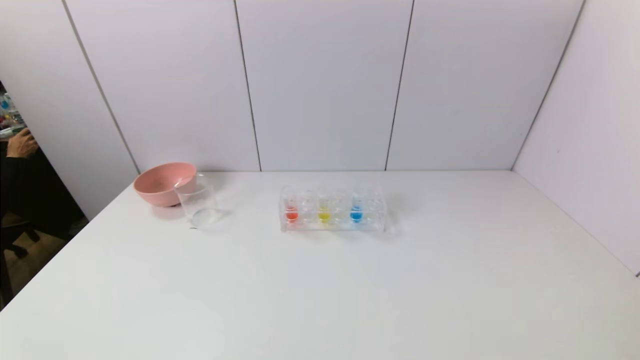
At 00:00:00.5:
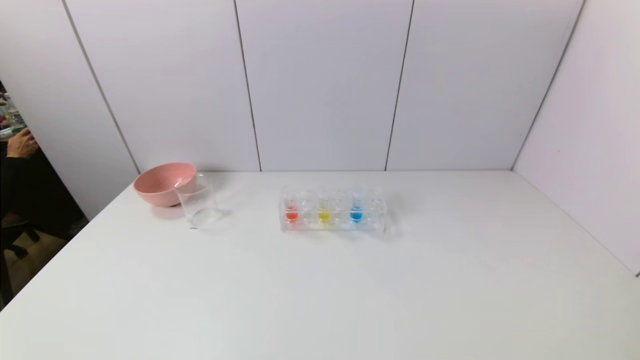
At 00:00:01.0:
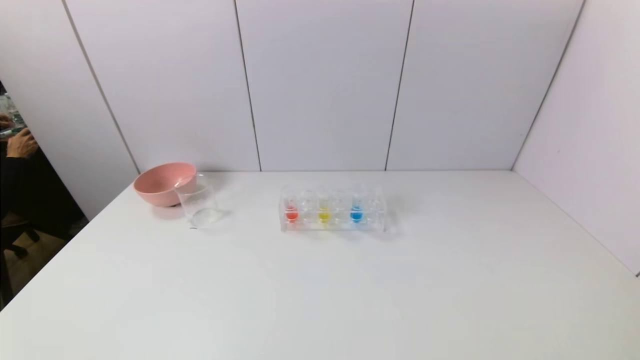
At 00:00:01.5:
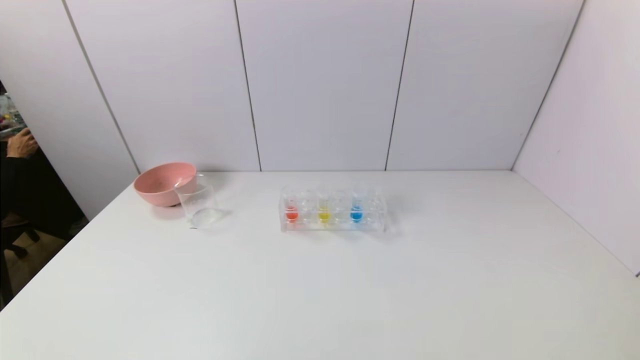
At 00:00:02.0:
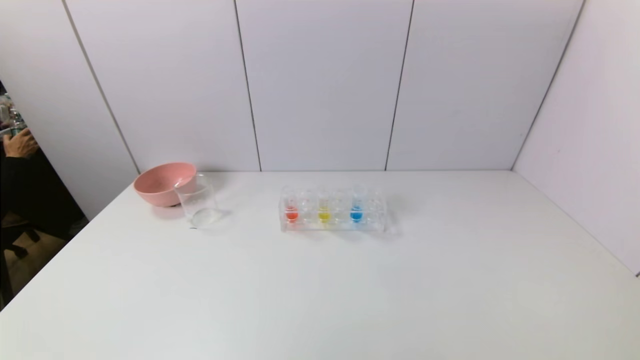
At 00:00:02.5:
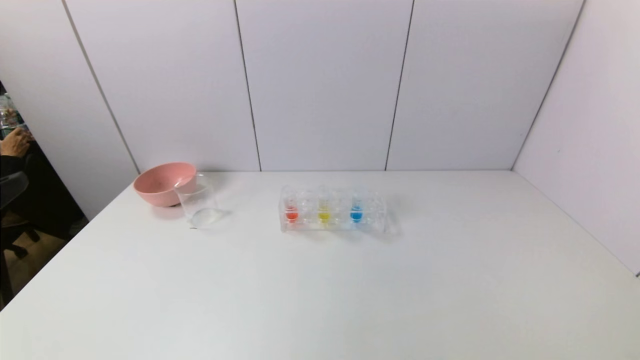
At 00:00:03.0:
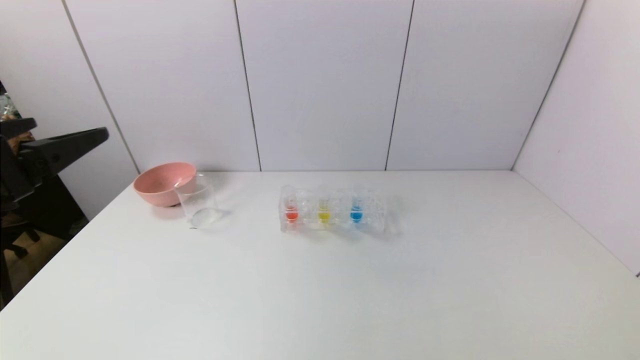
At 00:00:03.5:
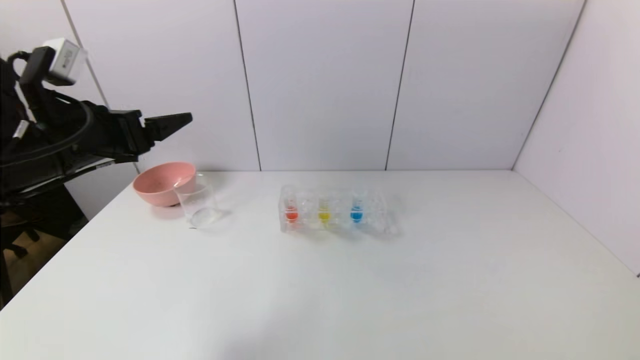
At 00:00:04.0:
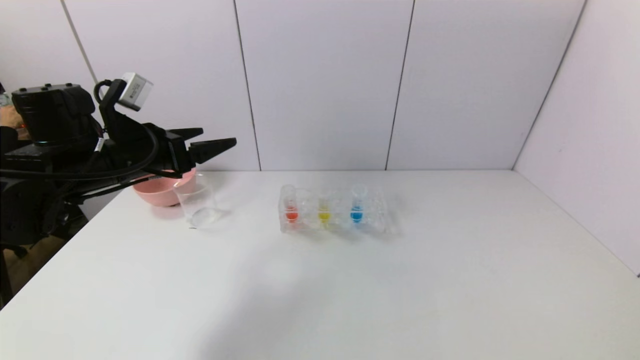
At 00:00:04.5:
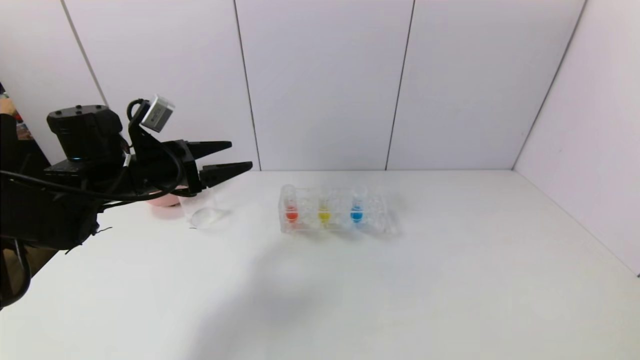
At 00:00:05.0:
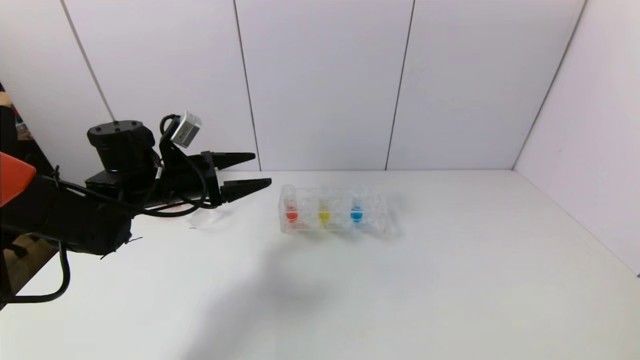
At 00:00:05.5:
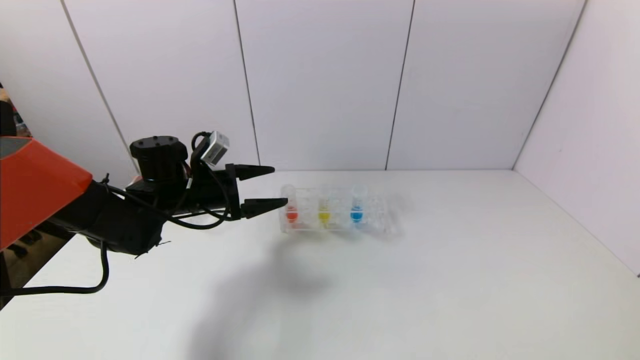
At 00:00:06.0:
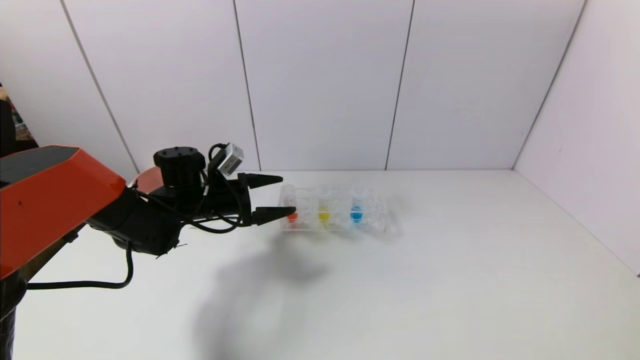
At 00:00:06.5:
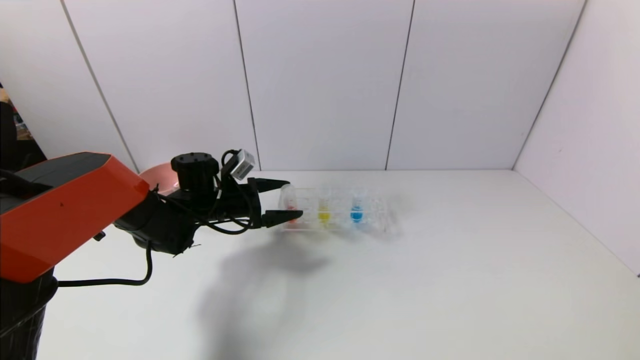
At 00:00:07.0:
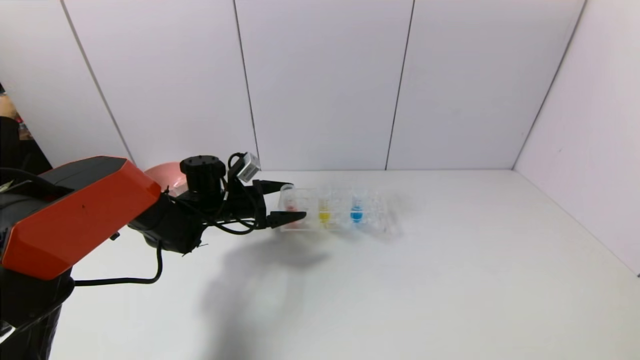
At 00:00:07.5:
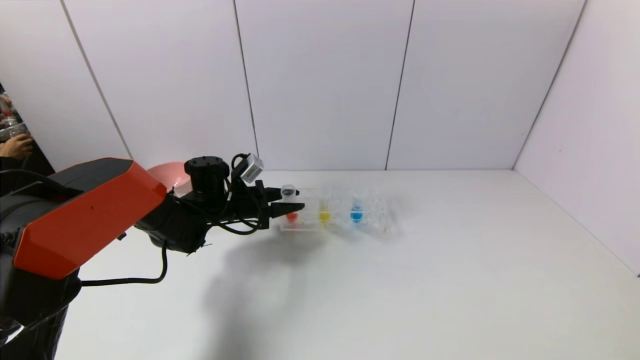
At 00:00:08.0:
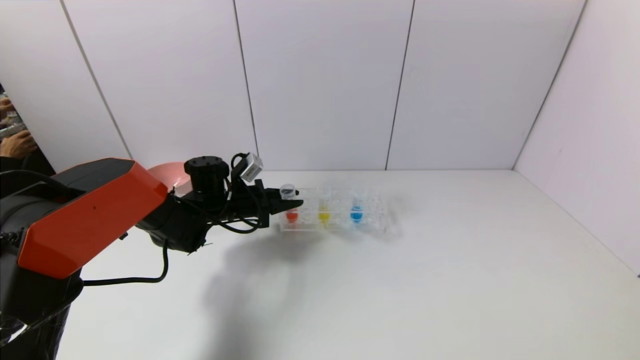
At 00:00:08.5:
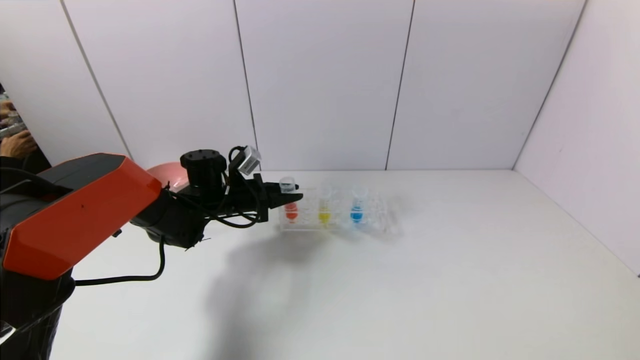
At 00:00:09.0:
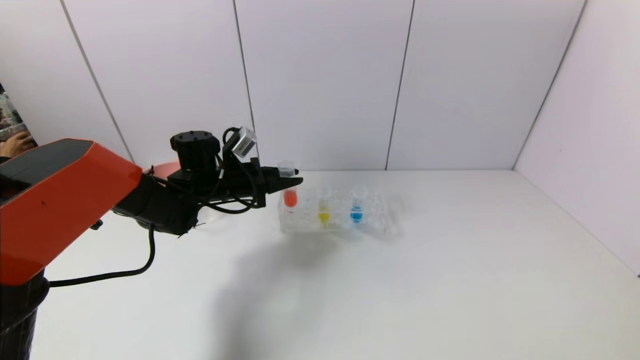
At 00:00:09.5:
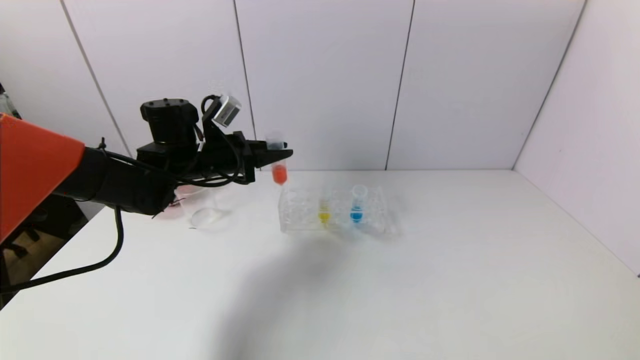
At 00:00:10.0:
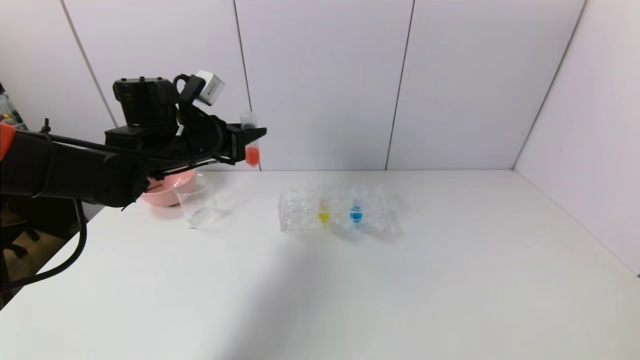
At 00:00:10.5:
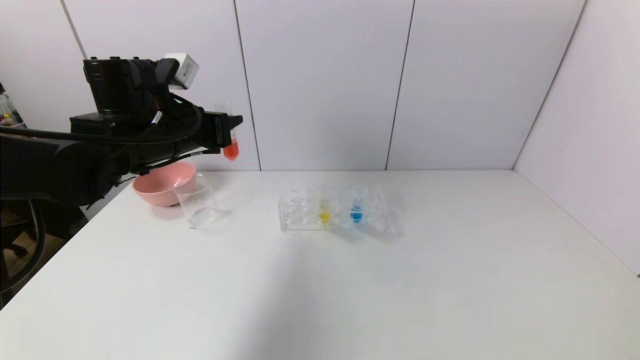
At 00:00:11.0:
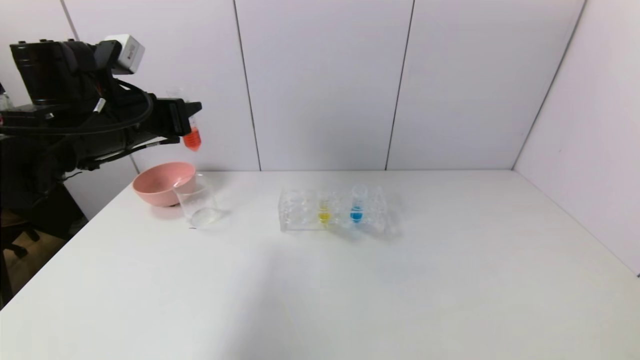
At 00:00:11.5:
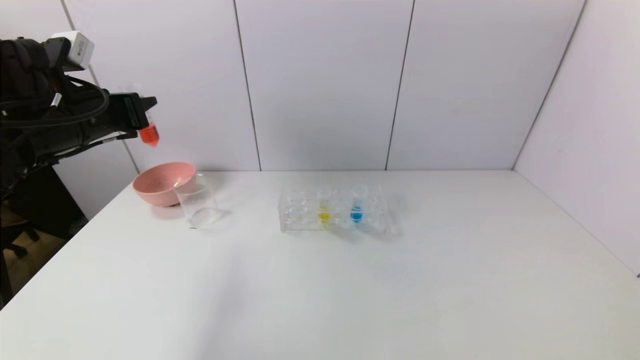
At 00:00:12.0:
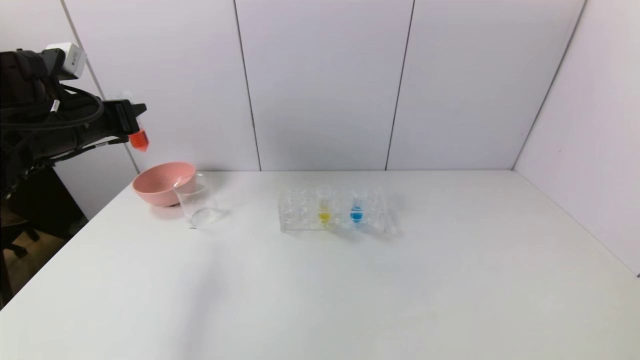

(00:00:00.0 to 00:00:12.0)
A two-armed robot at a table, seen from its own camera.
Task of the whole recording: pick up the test tube with red pigment and the test tube with blue pigment by grippers and pour them into the container.
Step, 00:00:00.0 - 00:00:08.0: Grasp the red reagent with the left gripper.
00:00:02.0 - 00:00:04.0: The left gripper goes approximately 35 cm forward.
00:00:04.0 - 00:00:06.0: The left gripper shifts approximately 15 cm downward, forward and to the right.
00:00:06.0 - 00:00:08.0: The left gripper shifts by some 5 cm, and closes.
00:00:08.0 - 00:00:10.0: The left gripper goes roughly 15 cm upward.
00:00:10.0 - 00:00:12.0: The left gripper moves to the left, some 15 cm.

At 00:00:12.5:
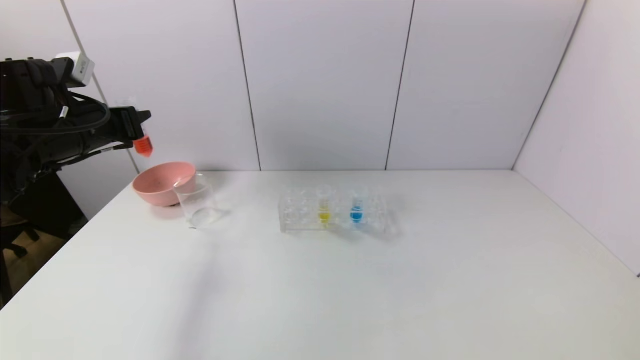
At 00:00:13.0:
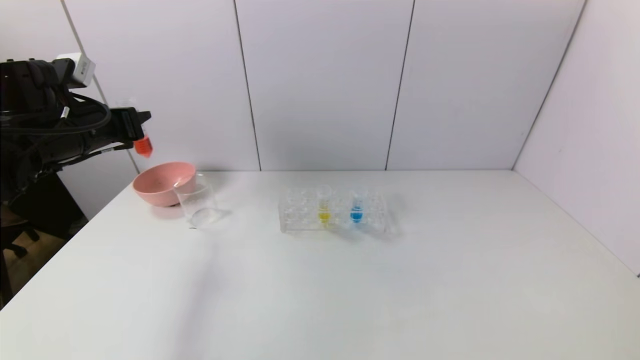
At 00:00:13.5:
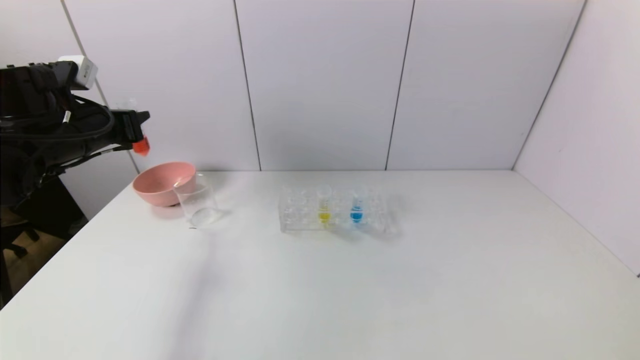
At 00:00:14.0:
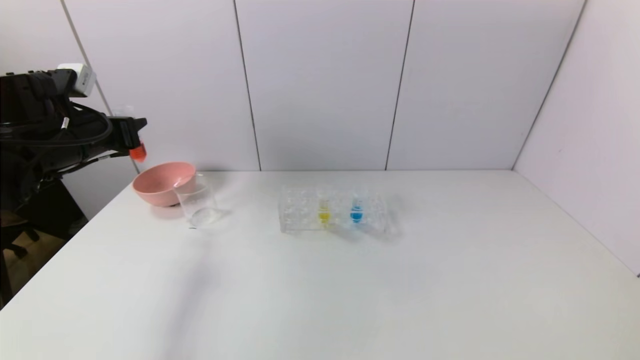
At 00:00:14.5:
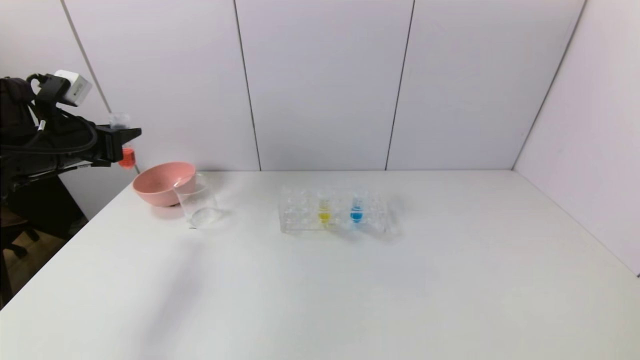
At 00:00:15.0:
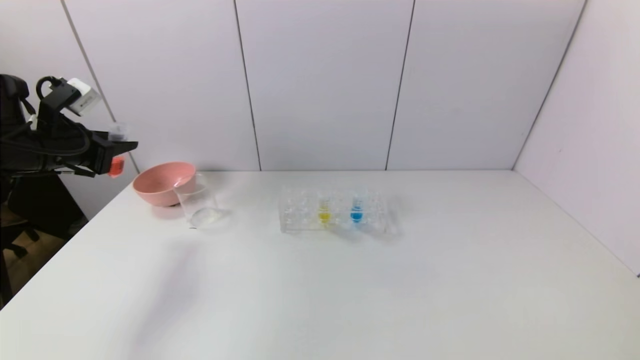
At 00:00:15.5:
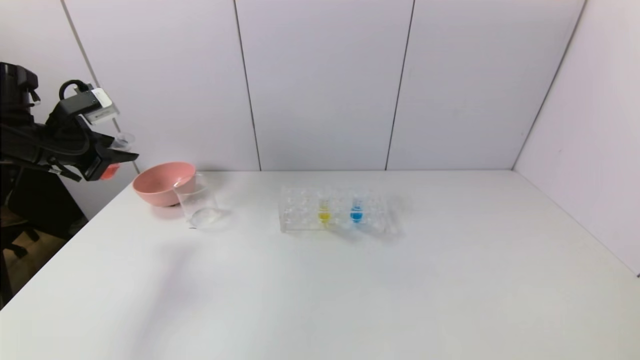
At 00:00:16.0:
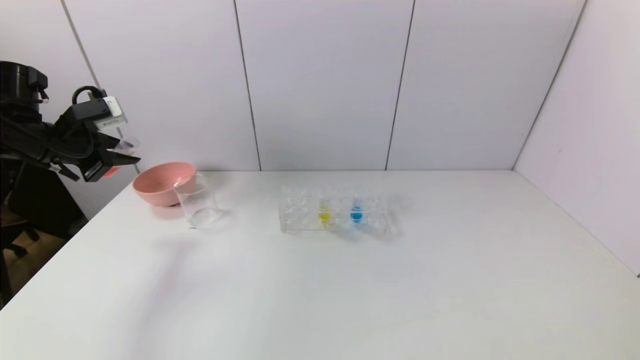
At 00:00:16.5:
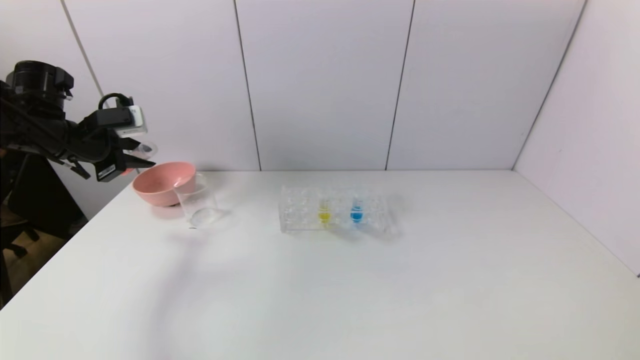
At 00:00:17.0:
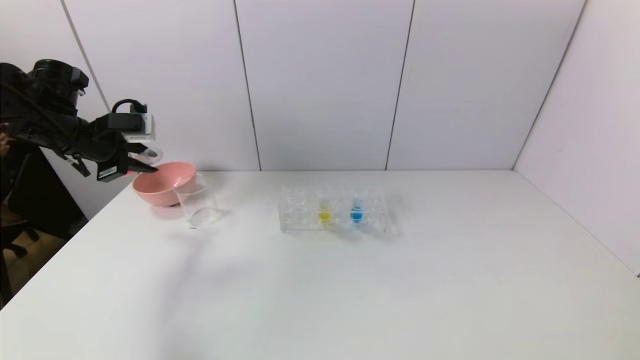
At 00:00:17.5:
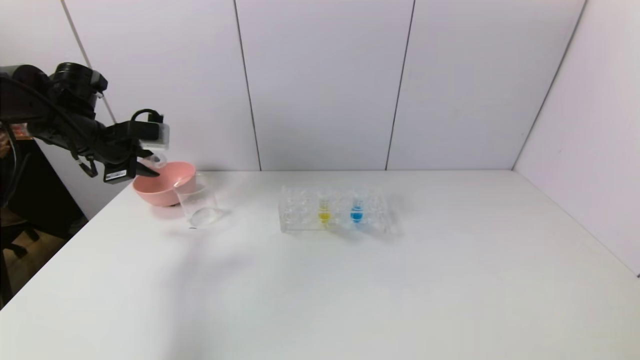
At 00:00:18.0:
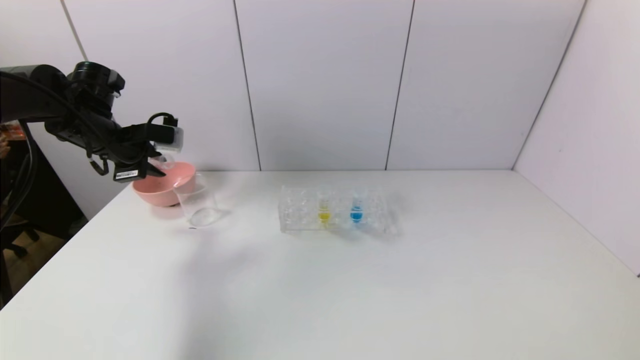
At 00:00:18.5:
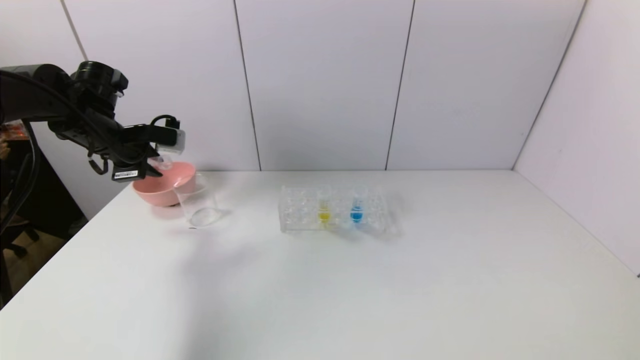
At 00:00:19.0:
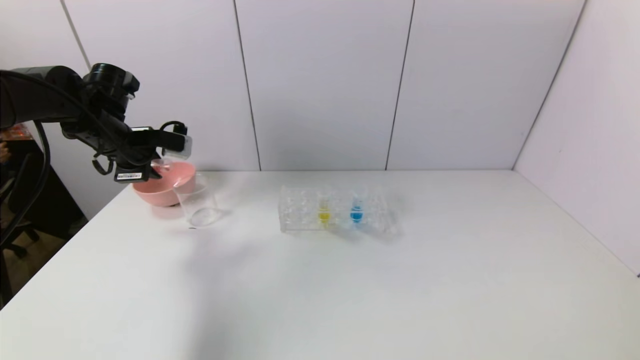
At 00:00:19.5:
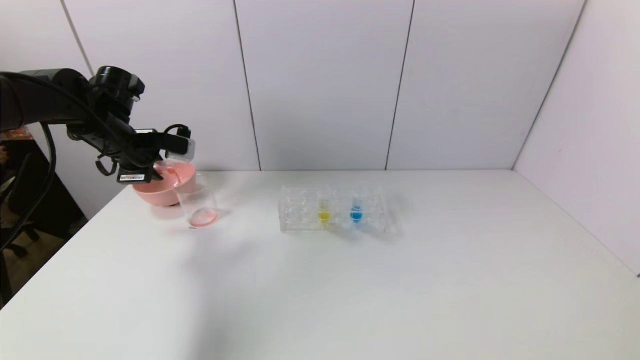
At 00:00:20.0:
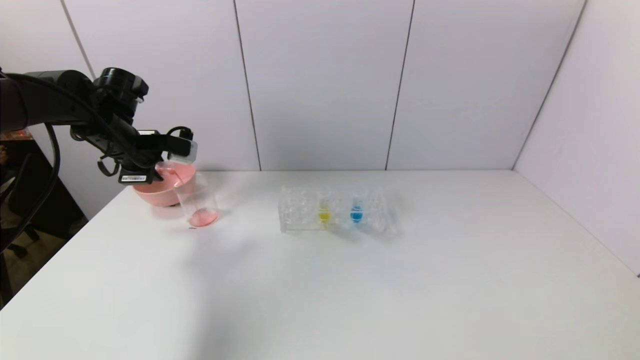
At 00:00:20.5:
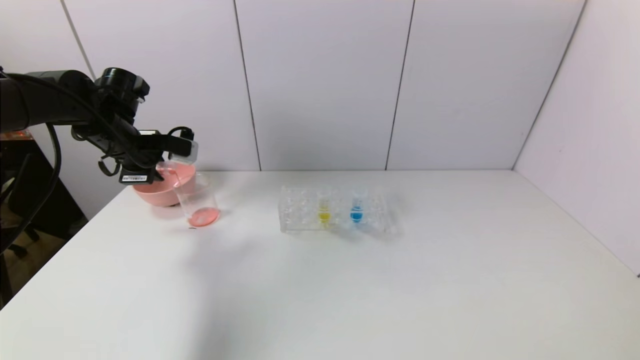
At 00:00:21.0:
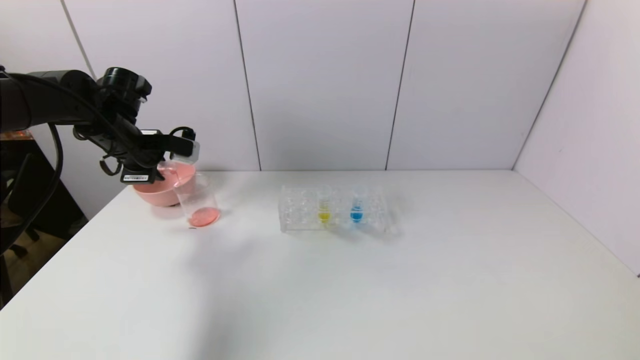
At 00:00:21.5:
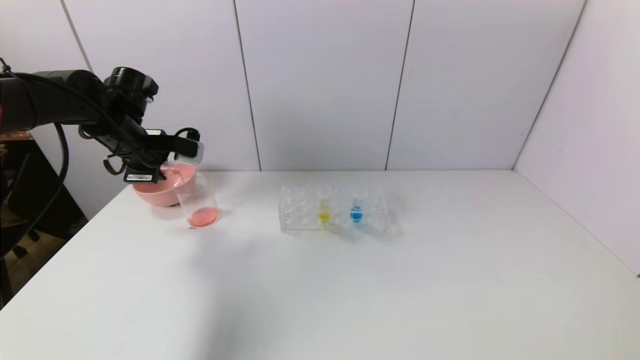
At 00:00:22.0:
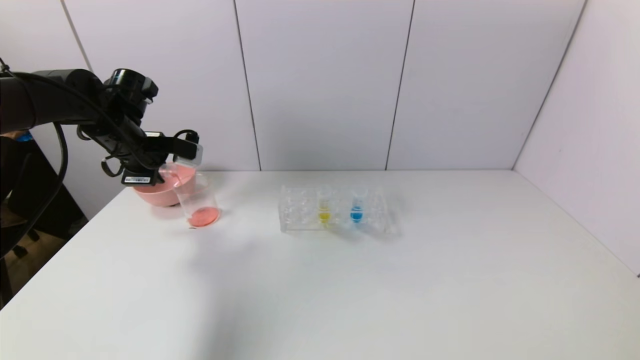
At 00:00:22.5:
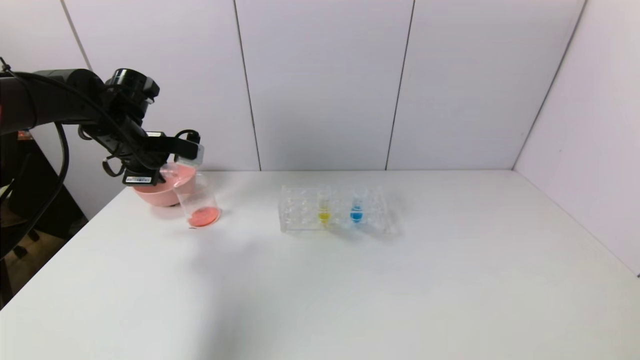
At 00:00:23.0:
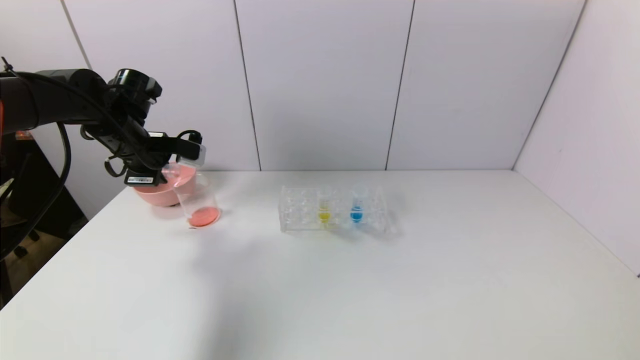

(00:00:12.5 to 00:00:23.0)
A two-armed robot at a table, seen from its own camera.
Task of the whole recording: pick up the test tube with red pigment and the test tube with blue pigment by grippers and pour them into the container.
00:00:12.5 - 00:00:14.5: There are only small adjustments of the grippers.
00:00:16.5 - 00:00:19.0: The left gripper goes about 5 cm to the right.
00:00:19.0 - 00:00:21.0: Neither gripper changes place.
00:00:21.0 - 00:00:23.0: Neither gripper changes place.
